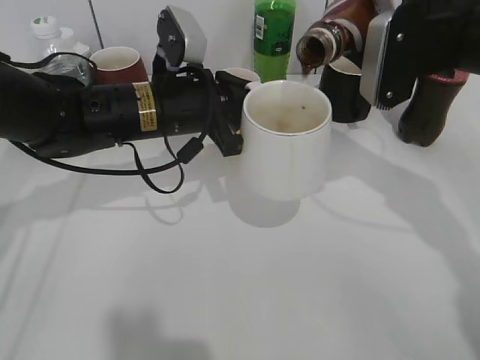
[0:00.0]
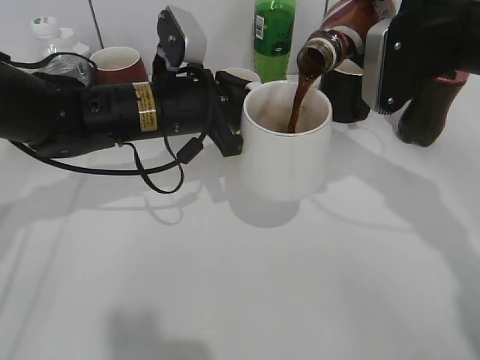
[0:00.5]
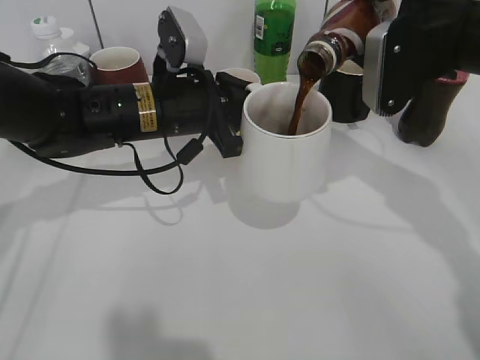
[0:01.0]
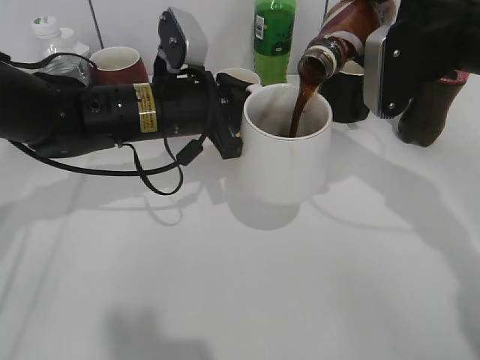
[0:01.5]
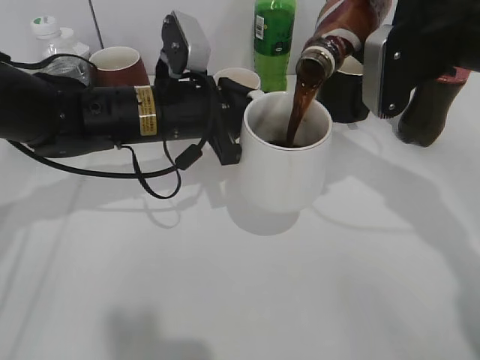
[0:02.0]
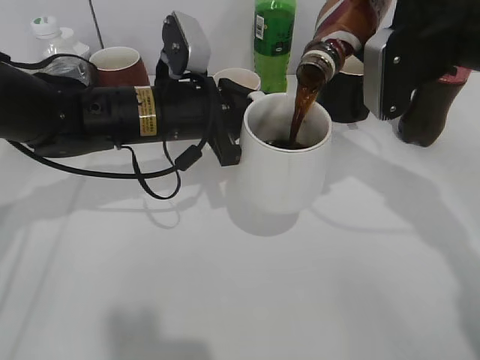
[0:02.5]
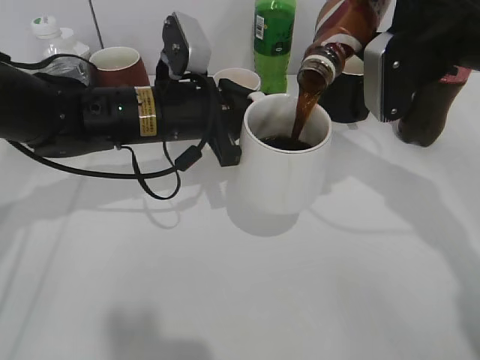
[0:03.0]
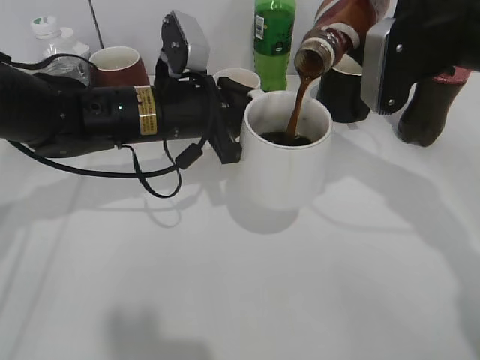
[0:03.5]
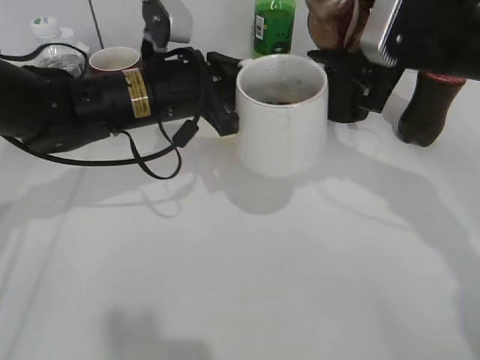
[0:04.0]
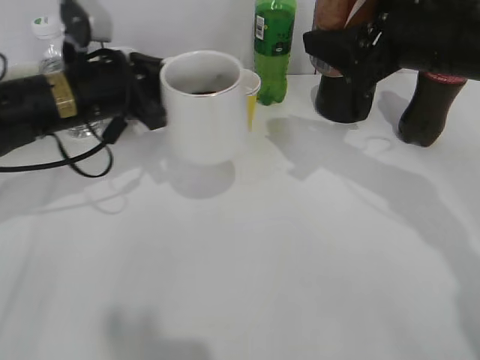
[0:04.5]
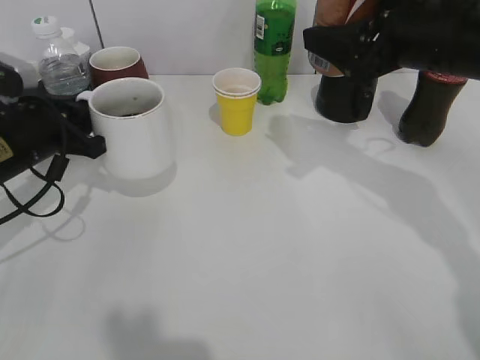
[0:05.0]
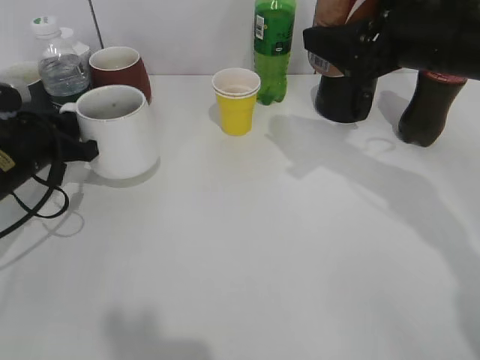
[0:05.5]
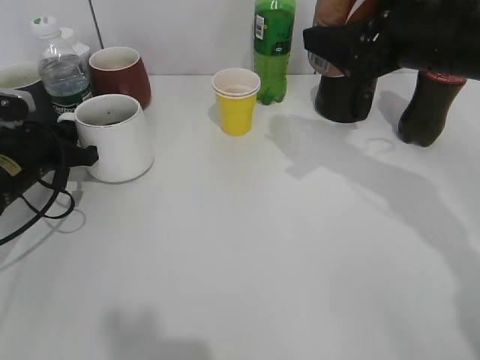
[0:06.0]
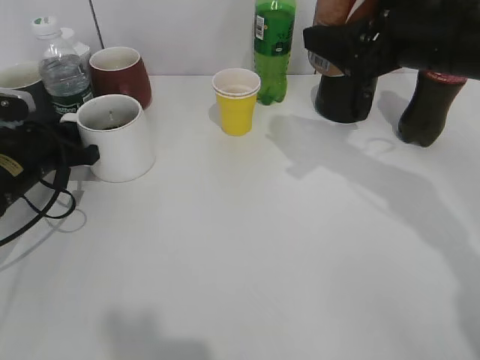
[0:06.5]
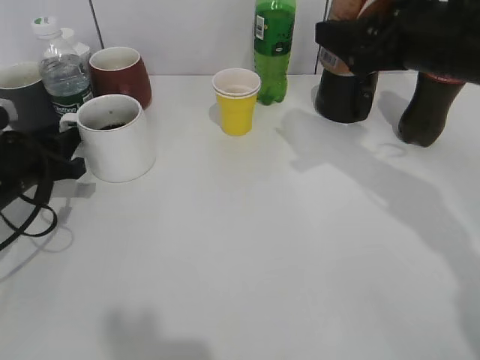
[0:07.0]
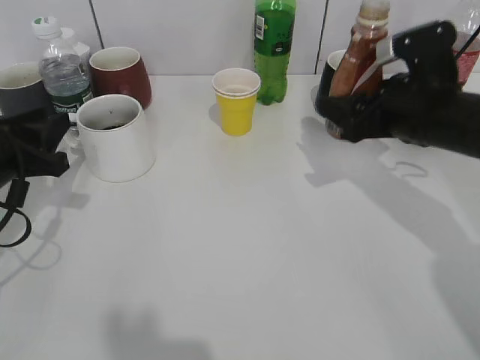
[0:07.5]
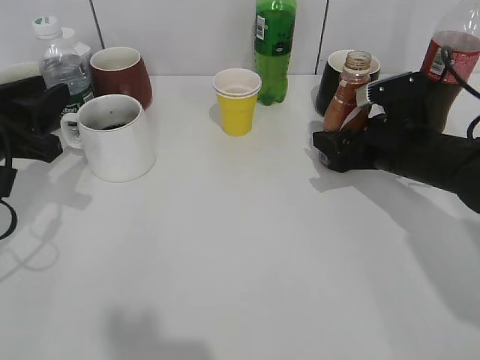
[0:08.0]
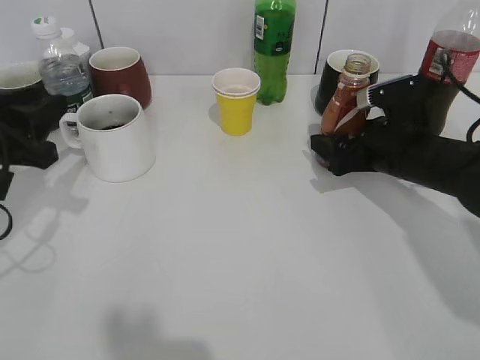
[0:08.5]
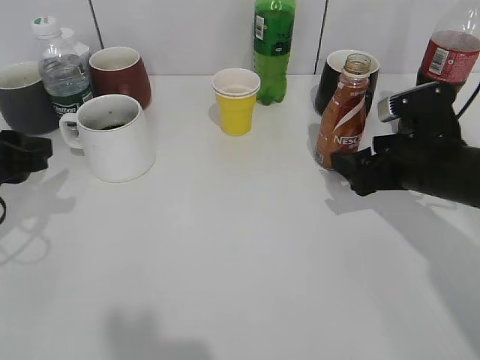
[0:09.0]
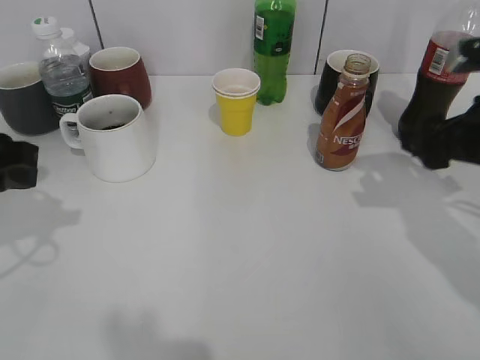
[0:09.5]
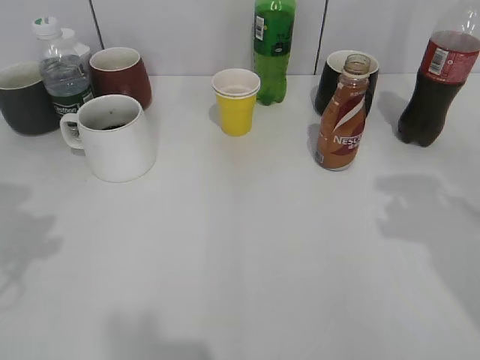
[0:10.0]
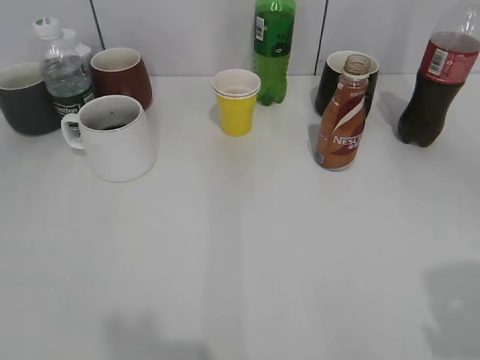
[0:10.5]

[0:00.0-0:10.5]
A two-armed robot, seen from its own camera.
Step, 0:00.0 to 0:03.5: Pour the coffee from bottle to cup with right gripper.
Step, 0:04.0 to 0:07.0: Place the white cup on the table with left gripper.
Step, 0:07.5 to 0:09.0: Place the coffee bottle on the table with right gripper.
0:00.0 to 0:02.0: There are only small adjustments of the grippers.
0:04.0 to 0:06.5: The left gripper travels to the left and downward by some 20 cm.
0:06.5 to 0:08.5: The right gripper moves downward, some 15 cm, and opens. Meanwhile the left gripper goes some 10 cm upward and backward.
0:08.5 to 0:10.5: The grippers both shift backward and upward by approximately 30 cm. The right gripper closes.
